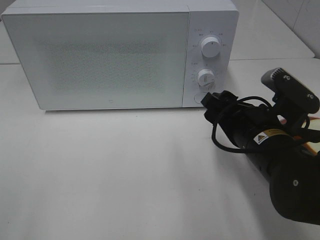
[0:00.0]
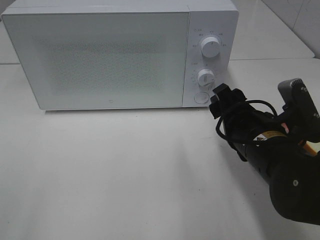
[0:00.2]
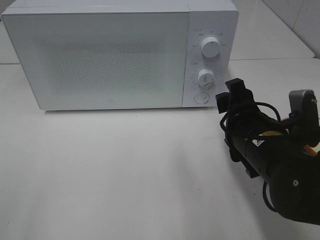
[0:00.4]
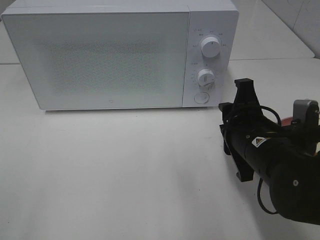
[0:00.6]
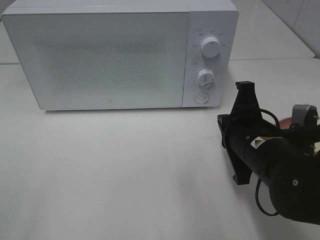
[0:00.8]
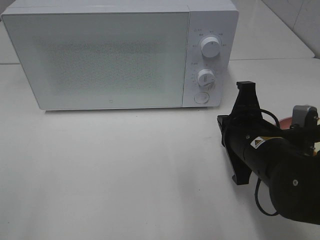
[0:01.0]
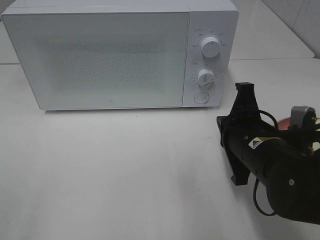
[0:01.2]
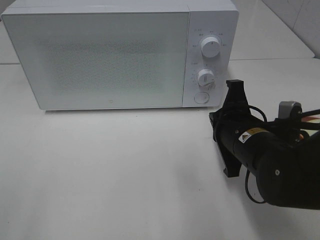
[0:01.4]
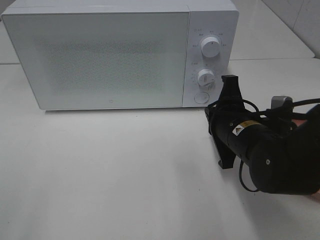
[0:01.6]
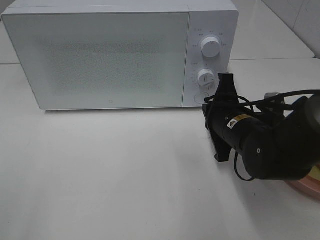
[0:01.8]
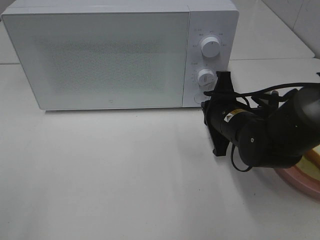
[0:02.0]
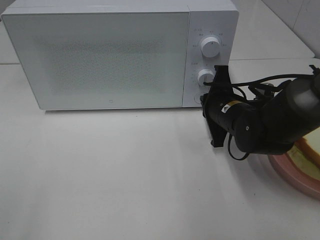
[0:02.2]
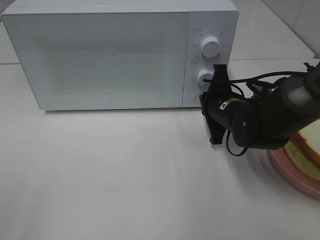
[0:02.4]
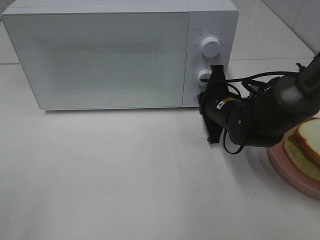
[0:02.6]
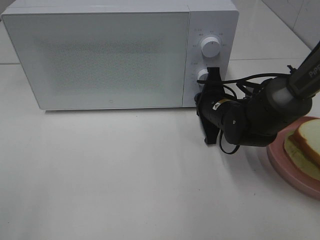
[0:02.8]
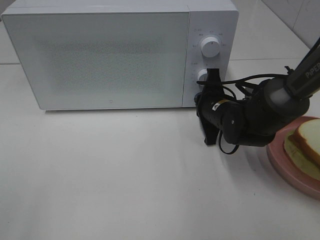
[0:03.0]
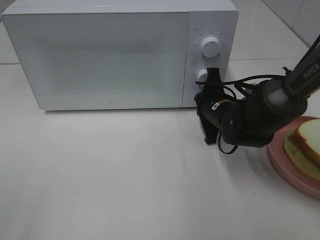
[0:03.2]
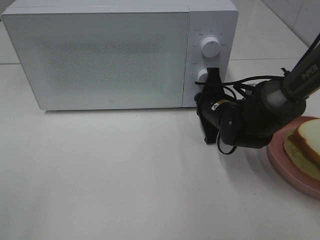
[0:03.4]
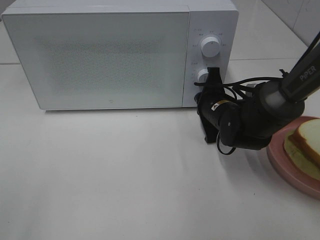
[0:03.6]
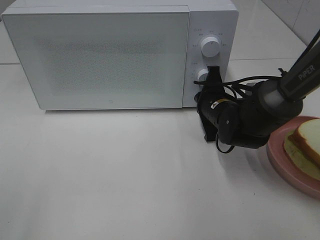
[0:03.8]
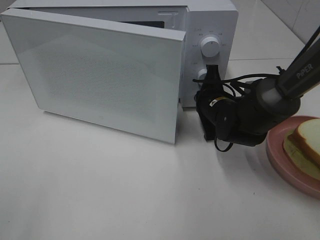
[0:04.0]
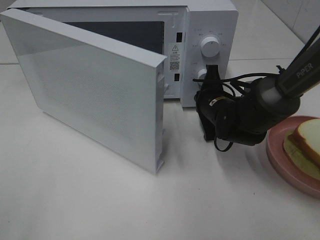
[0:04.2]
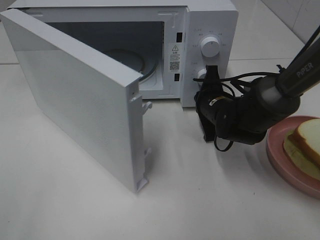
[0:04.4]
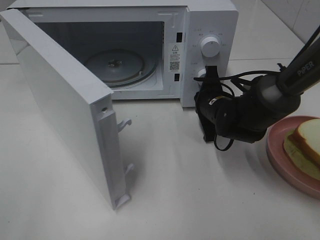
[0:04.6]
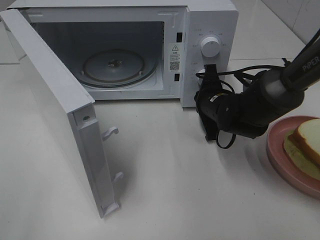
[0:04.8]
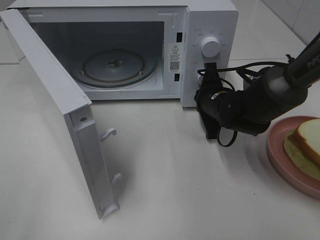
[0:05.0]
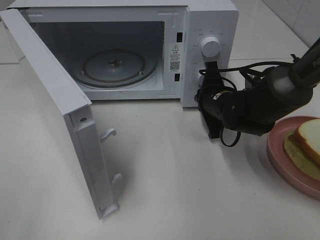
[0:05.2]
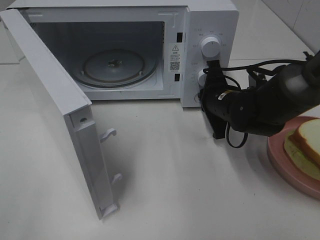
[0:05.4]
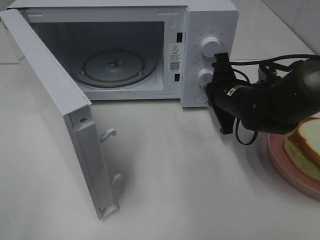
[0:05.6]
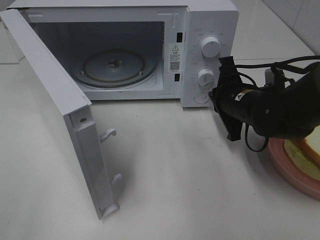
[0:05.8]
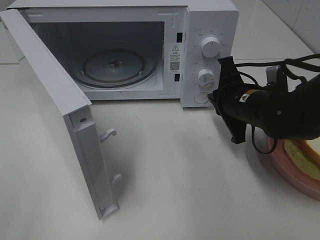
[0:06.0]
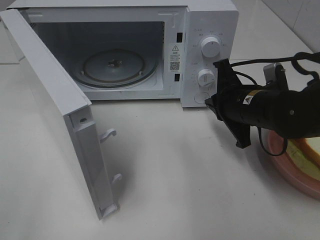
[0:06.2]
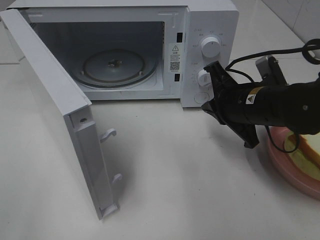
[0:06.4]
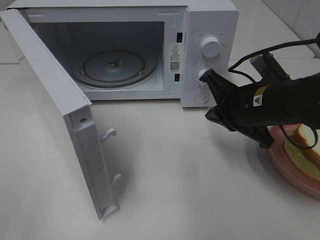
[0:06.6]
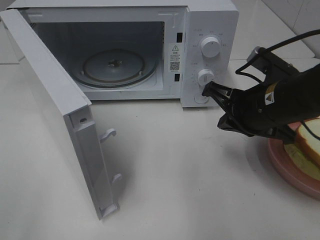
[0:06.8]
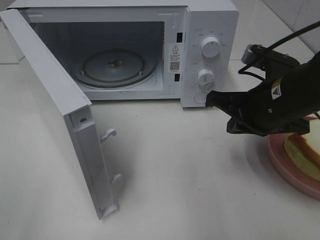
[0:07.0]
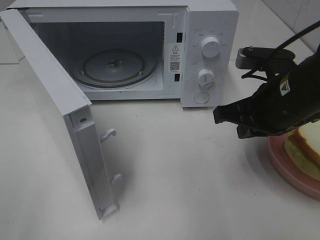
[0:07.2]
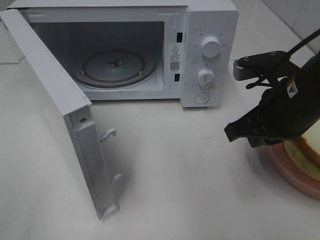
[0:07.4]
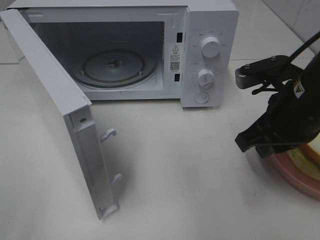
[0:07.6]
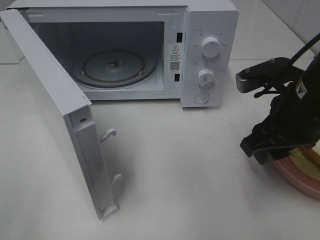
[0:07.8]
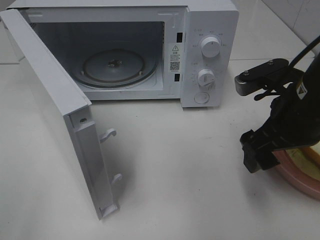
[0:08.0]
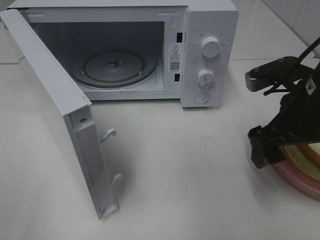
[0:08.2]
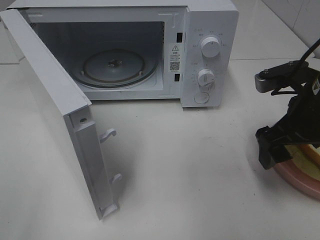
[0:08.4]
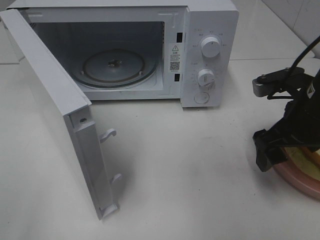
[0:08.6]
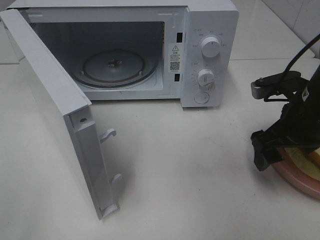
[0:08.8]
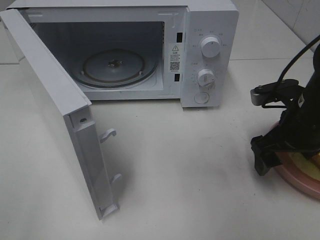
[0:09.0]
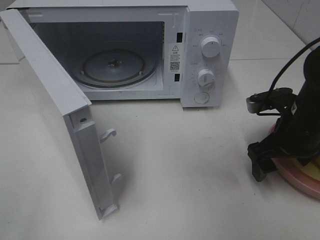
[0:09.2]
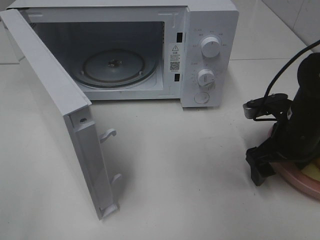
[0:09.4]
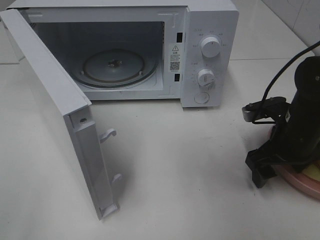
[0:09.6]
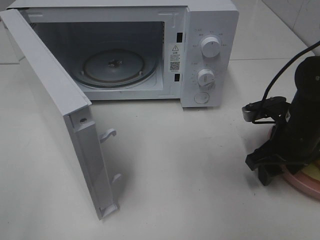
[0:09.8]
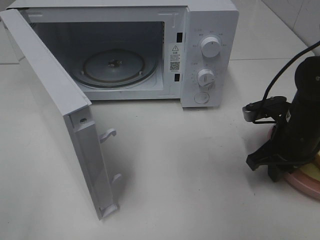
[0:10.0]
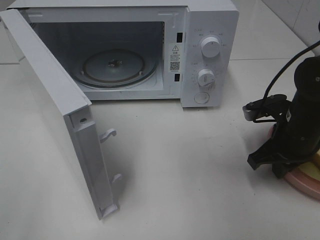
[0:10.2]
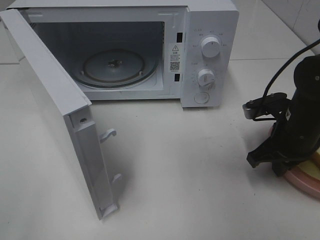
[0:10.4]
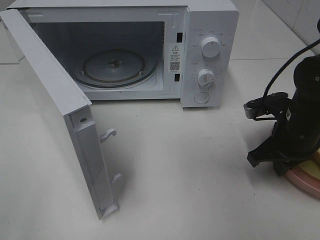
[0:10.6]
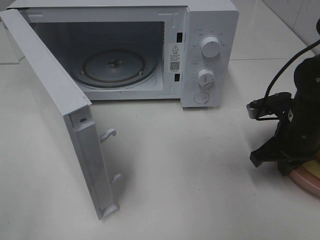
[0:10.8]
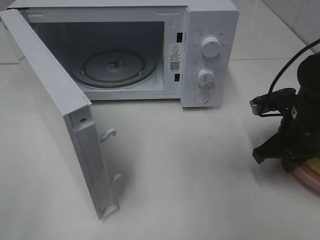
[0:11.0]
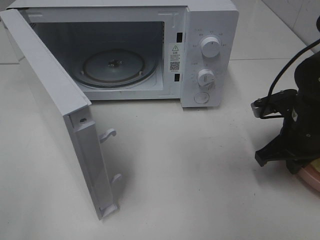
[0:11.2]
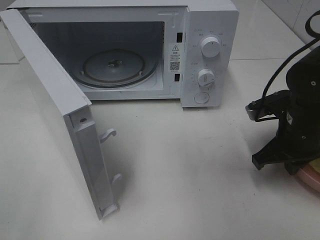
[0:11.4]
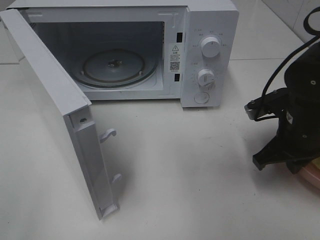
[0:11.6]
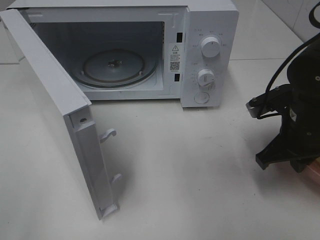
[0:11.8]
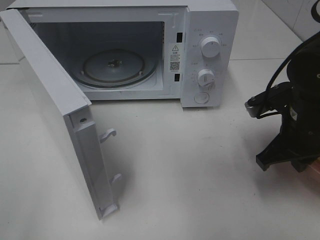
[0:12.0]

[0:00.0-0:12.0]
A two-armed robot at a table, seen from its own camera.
Task of the whole recording: Heat Sandwich.
Step, 0:00.0 to 0:05.6: Right hand: press the switch.
Step, 0:05.8 to 0:10.4: Right hand: grab the plate with the sandwich.
0:00.0 to 0:01.6: The right gripper closes its fingers.
0:01.6 to 0:03.0: The right gripper travels forward by approximately 10 cm.
0:04.4 to 0:06.0: The right gripper is displaced backward and upward by about 10 cm.
0:06.0 to 0:07.6: The right gripper moves backward and upward, about 10 cm.
0:07.6 to 0:09.0: The right gripper moves downward, approximately 5 cm, and opens up.
0:09.0 to 0:10.4: The right gripper closes its fingers.
0:10.4 to 0:12.0: The right gripper ends up roughly 5 cm from where it was.

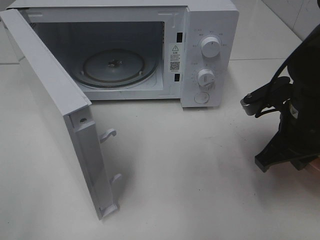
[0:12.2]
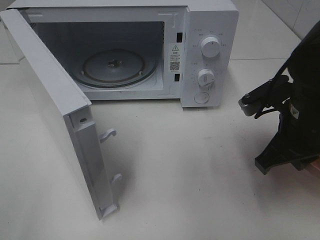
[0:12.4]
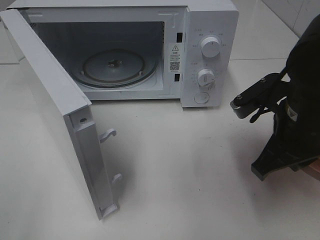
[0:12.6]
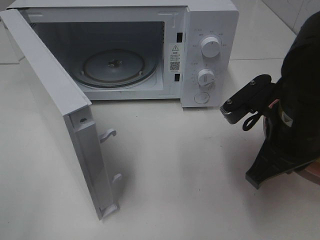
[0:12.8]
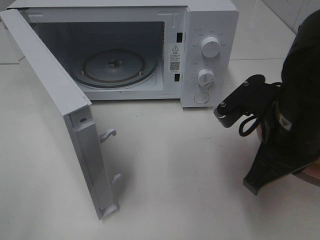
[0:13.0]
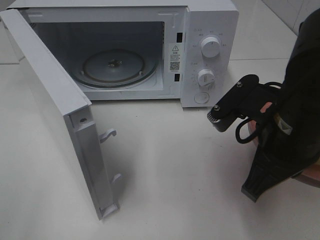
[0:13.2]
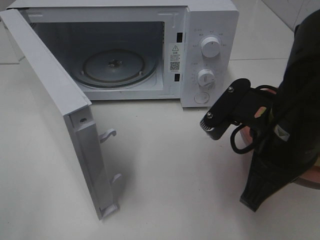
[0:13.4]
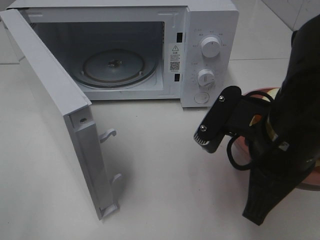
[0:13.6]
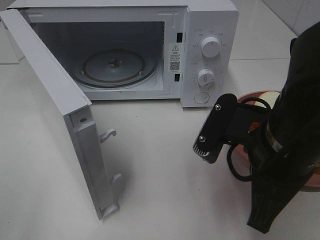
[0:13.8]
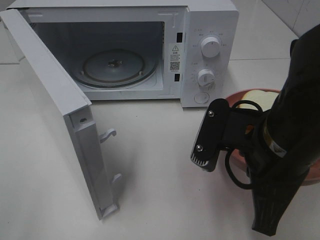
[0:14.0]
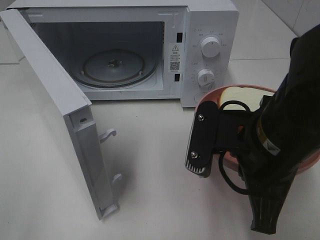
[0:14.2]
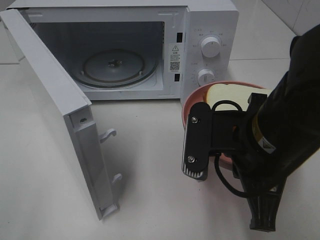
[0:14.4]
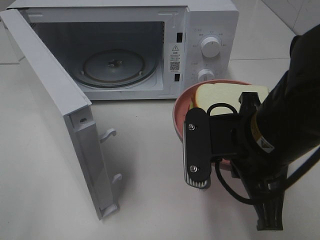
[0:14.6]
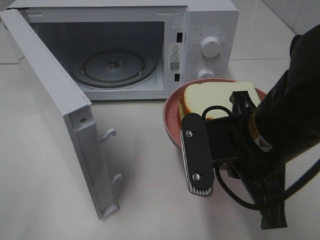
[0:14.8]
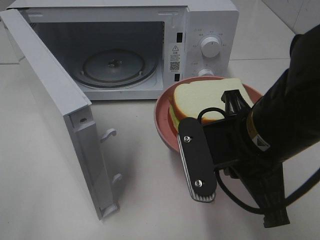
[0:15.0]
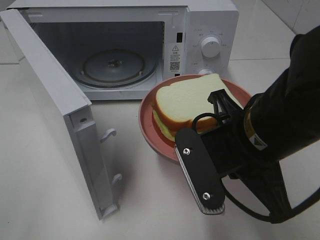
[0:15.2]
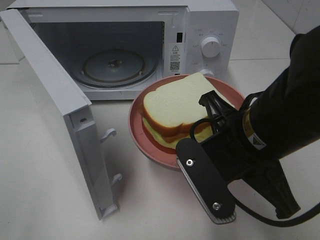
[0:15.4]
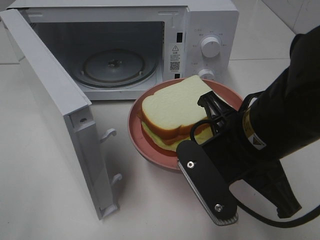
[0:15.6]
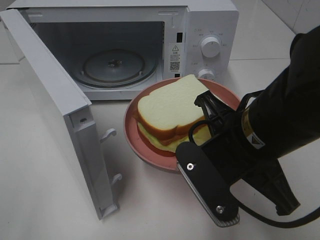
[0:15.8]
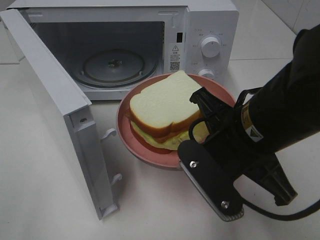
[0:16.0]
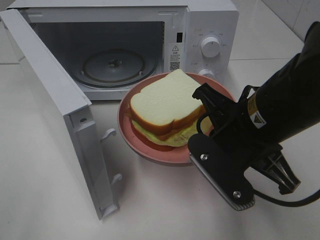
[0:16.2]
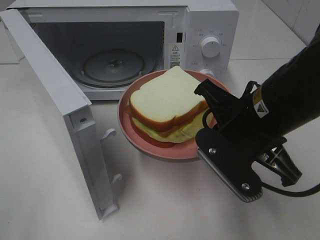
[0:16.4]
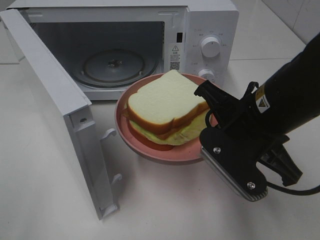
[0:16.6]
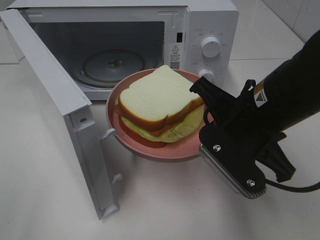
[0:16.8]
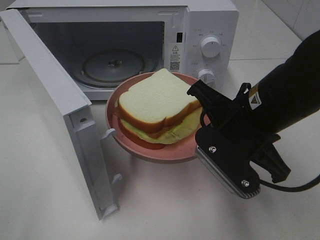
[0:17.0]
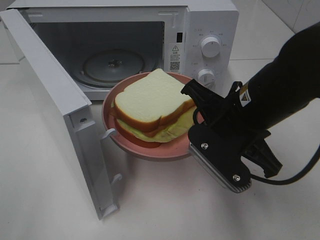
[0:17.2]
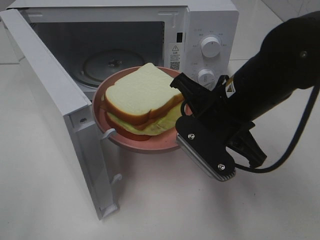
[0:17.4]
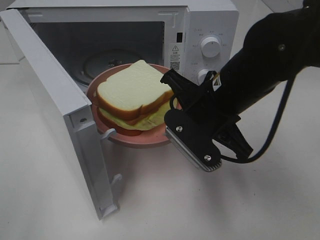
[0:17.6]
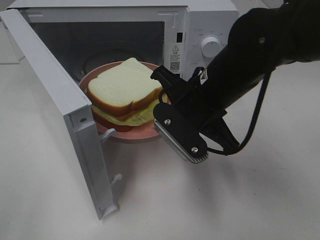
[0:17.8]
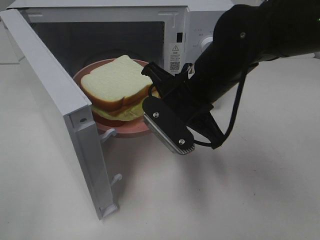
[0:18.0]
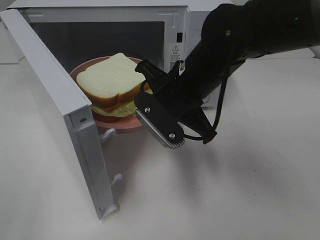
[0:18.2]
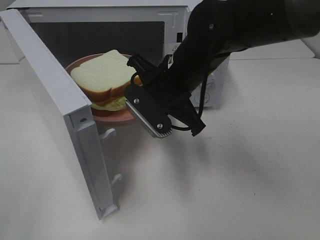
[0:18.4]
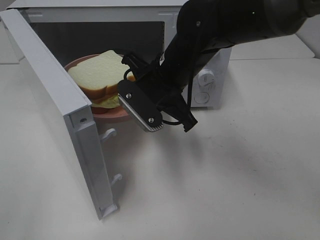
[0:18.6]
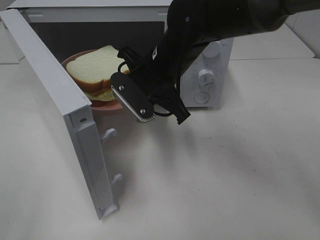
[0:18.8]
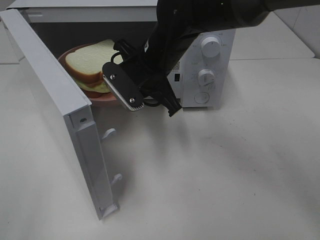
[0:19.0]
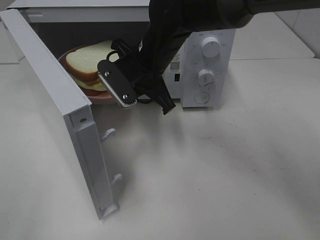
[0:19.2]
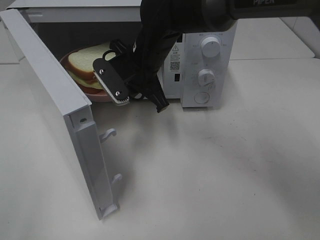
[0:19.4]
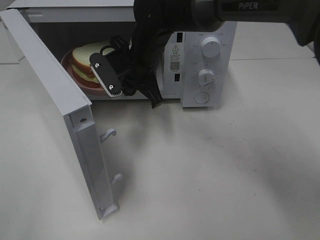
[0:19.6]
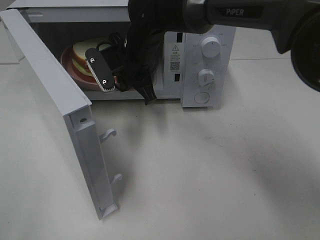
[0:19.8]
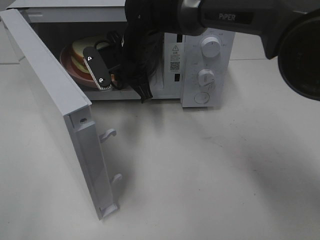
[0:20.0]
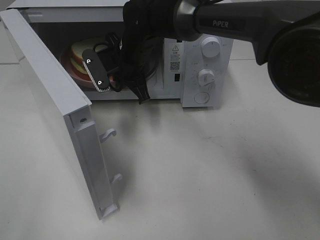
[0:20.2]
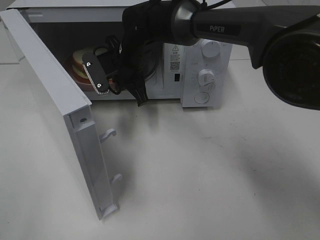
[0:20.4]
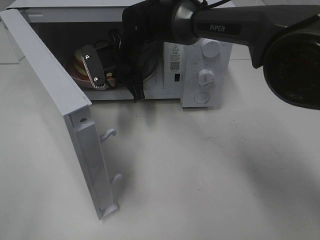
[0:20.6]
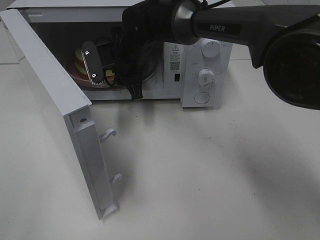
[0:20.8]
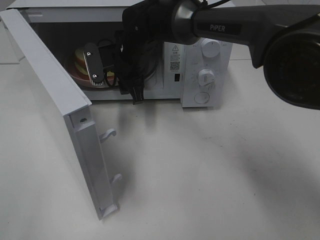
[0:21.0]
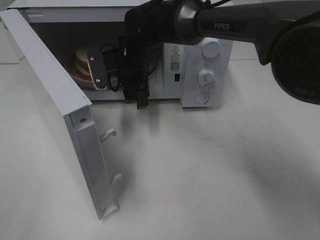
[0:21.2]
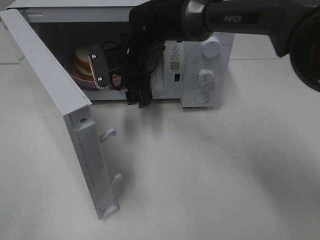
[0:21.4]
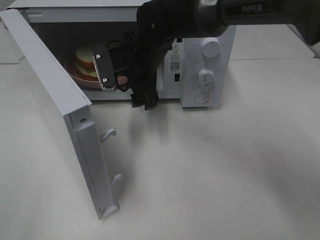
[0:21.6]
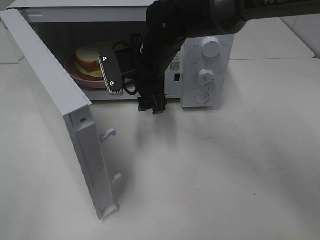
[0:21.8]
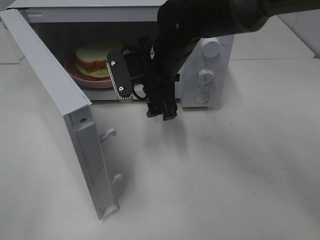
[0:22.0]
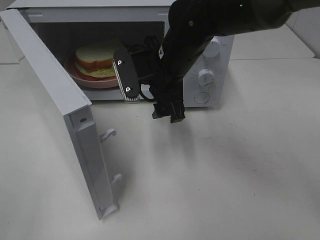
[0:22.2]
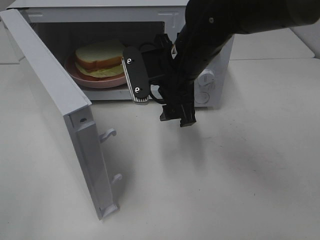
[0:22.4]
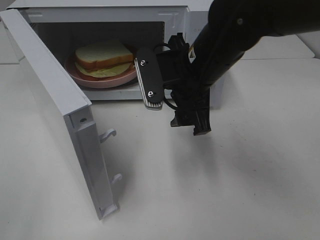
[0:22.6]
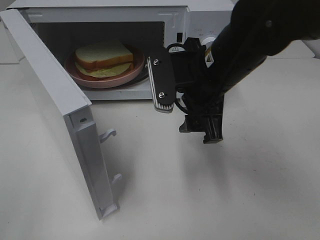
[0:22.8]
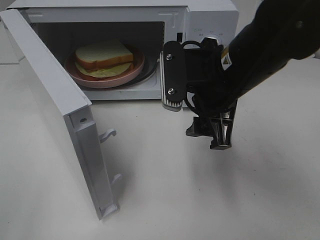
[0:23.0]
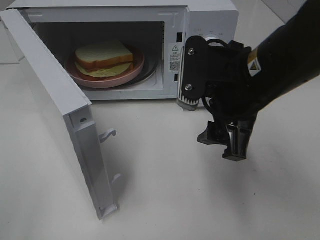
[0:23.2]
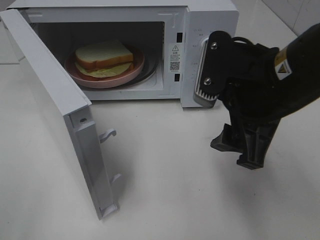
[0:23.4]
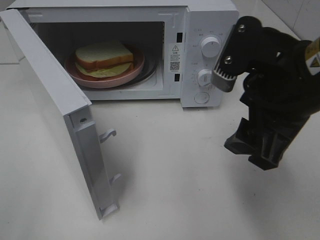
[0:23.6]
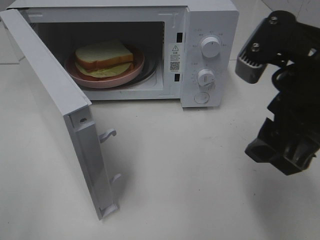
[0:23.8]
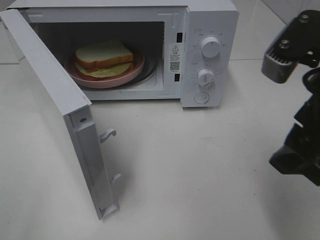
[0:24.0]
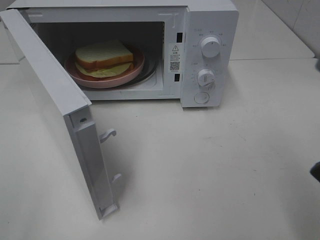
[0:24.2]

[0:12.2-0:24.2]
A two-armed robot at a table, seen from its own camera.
Task of the whole recording: Heat Sandwich.
Step, 0:12.2 to 0:21.6: Right hand: place the plate in the microwave.
0:12.2 to 0:13.8: The right gripper goes some 10 cm backward and to the left.
0:16.6 to 0:18.2: The right gripper travels forward and to the left by some 10 cm.
0:18.2 to 0:19.8: The right gripper is displaced forward and to the left by approximately 15 cm.
0:19.8 to 0:21.2: The right gripper opens.
0:21.2 to 0:22.6: The right gripper moves backward, to the right and upward, approximately 15 cm.
0:22.6 to 0:24.2: The right gripper moves backward, to the right and upward, roughly 25 cm.
